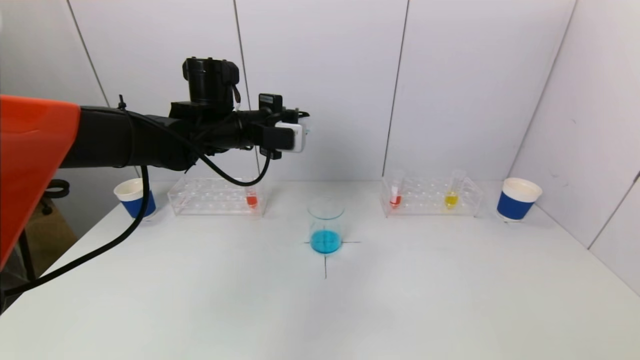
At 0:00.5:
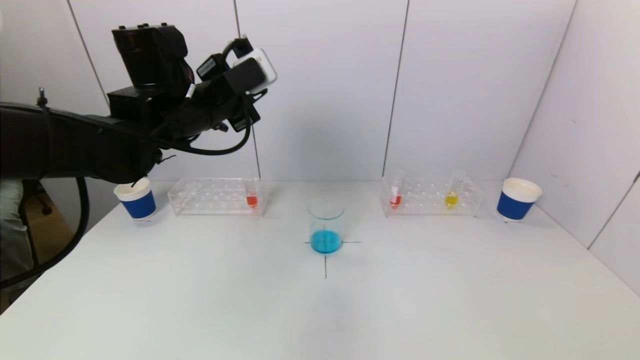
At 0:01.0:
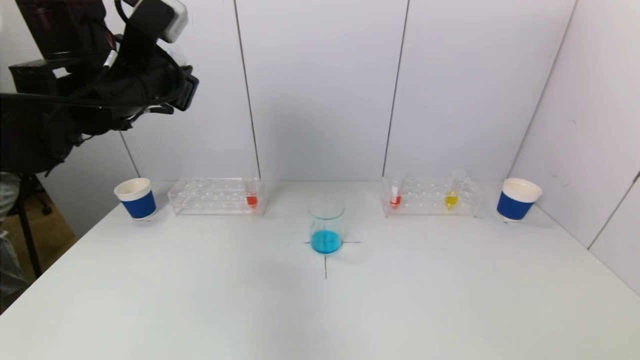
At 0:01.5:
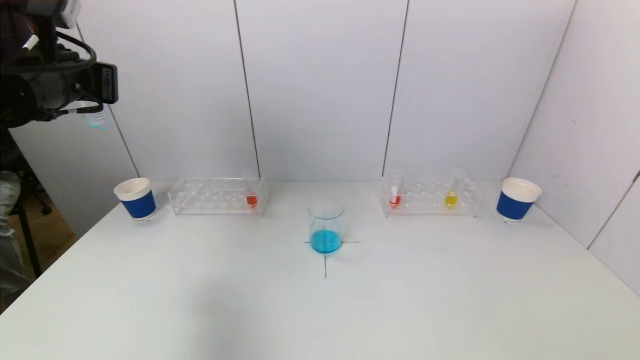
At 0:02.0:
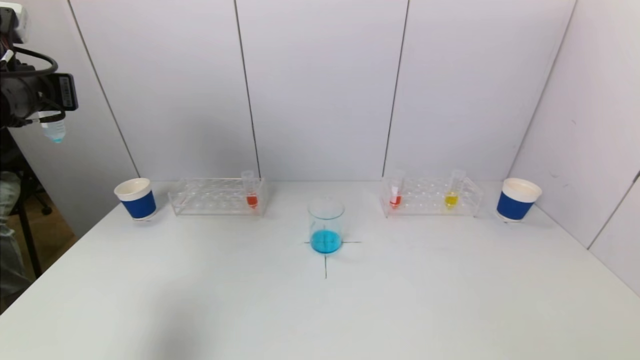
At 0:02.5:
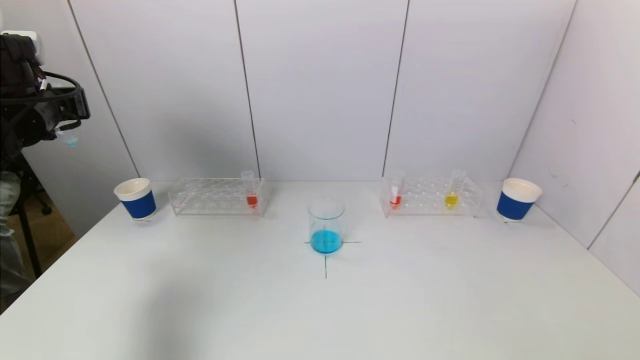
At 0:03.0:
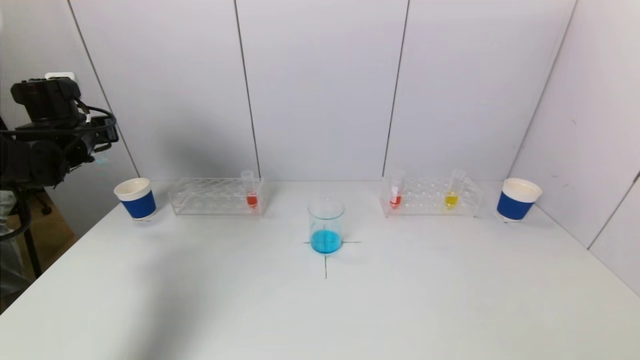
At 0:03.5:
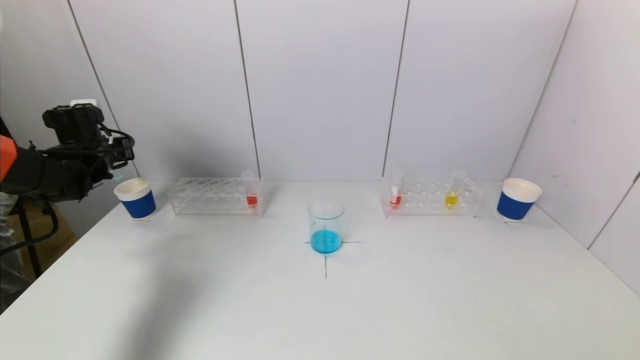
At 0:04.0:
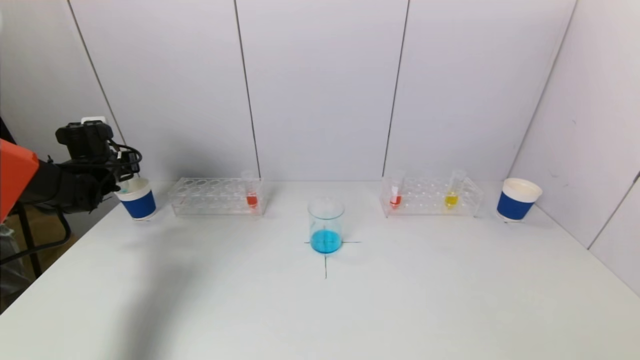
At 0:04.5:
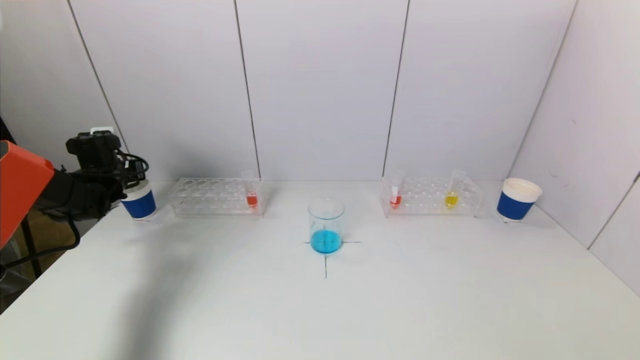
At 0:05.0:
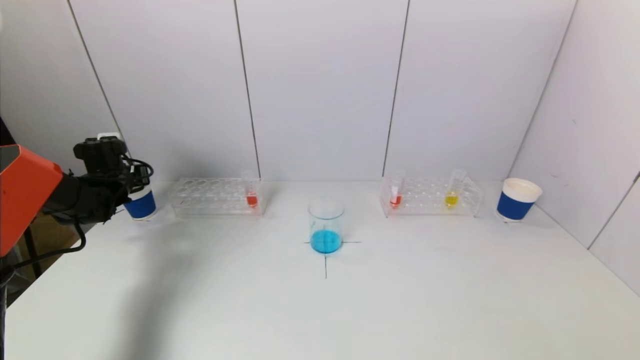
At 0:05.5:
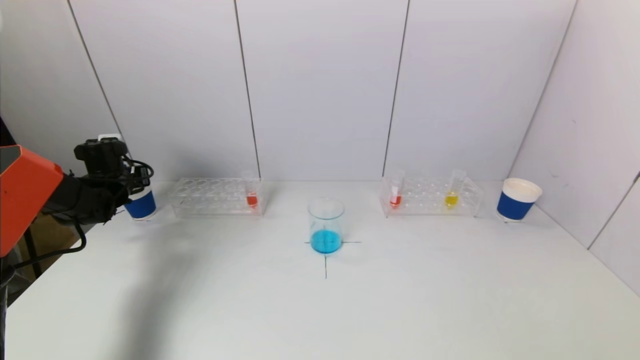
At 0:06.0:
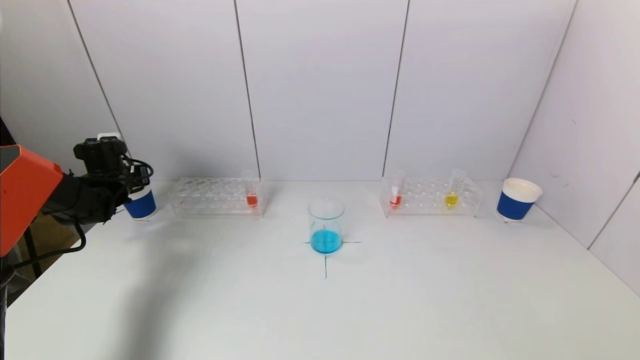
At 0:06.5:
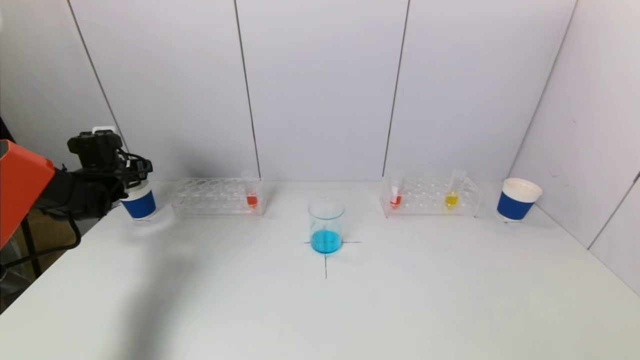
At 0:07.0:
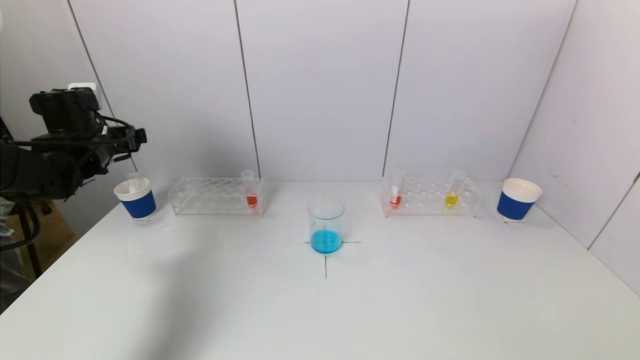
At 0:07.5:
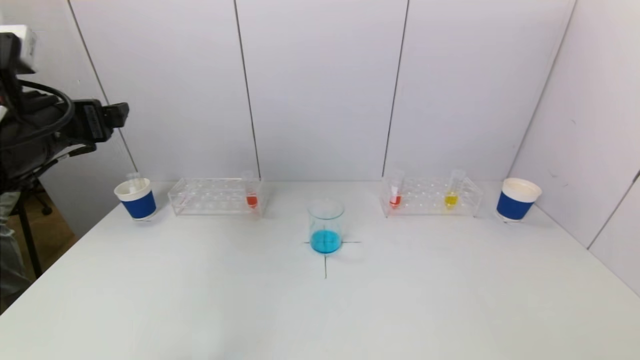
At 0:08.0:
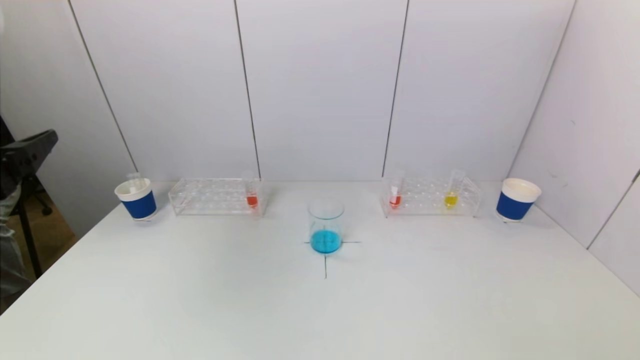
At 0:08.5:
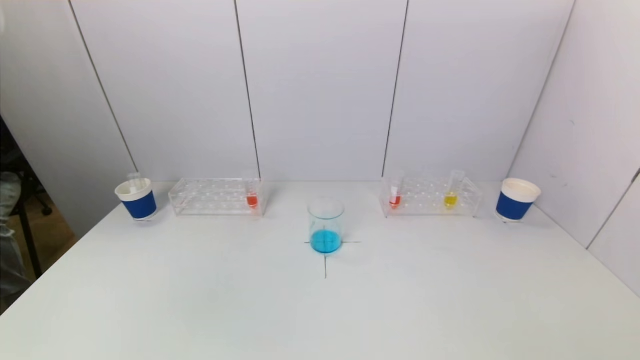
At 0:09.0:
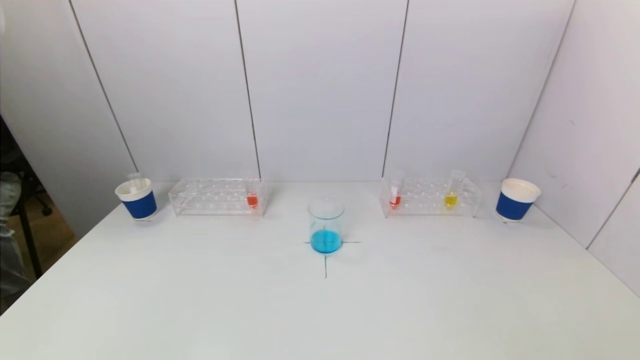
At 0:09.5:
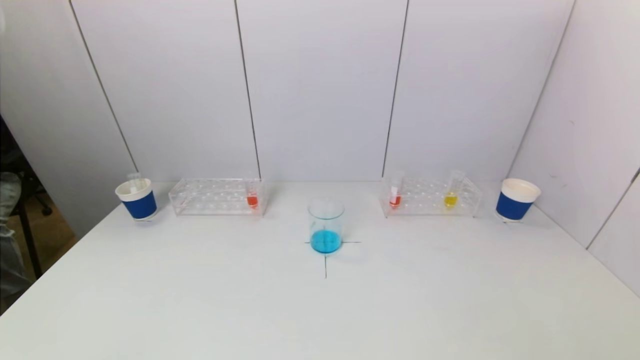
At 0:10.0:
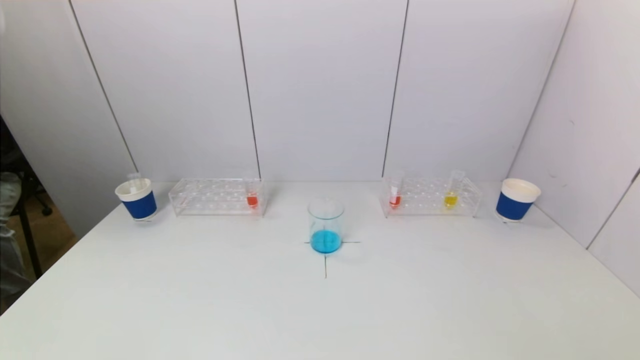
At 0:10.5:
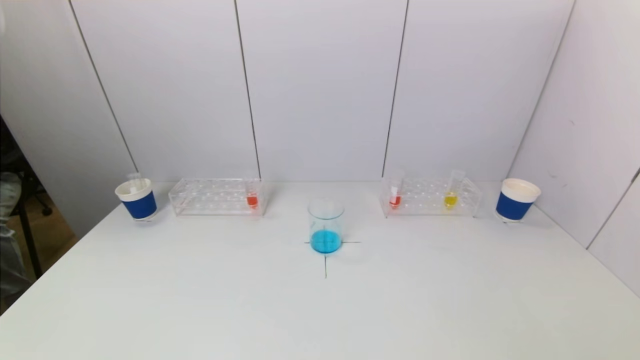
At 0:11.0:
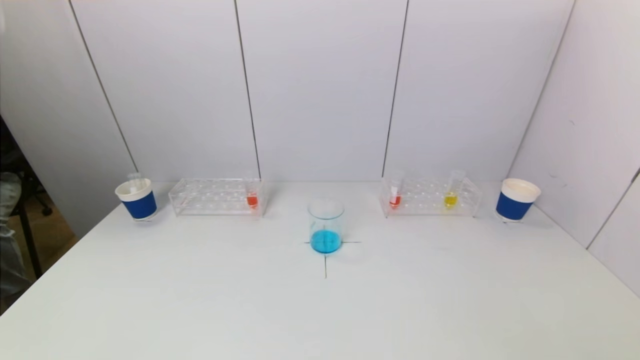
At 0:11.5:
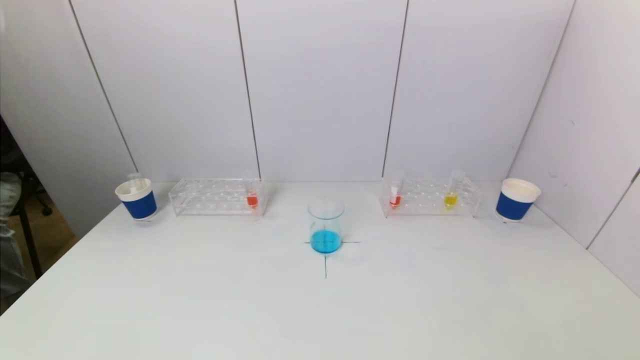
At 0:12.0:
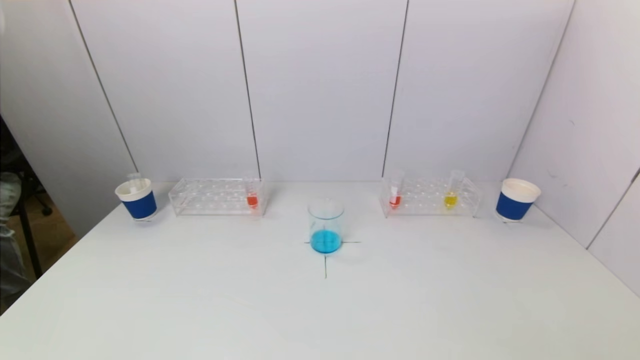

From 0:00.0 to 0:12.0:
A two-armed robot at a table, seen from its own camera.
Task of the whole recording: pick up a test tube with pigment on left test tube rack and a test tube with pigment on right test tube rack by grippers and pour them into the beaker.
Step, from 0:00.0 to 0:06.0: Place the test tube into the paper cup with the left gripper.
From 0:00.0 to 0:02.0: The left gripper travels to the left and backward by roughly 25 cm.
From 0:02.0 to 0:04.0: The left gripper heads downward and forward, covering some 25 cm.
From 0:04.0 to 0:06.0: The left gripper opens up.
From 0:06.0 to 0:08.0: The left gripper heads backward and upward, covering roughly 40 cm, and opens its fingers.
From 0:08.0 to 0:10.0: The left gripper moves downward and backward, roughly 25 cm.

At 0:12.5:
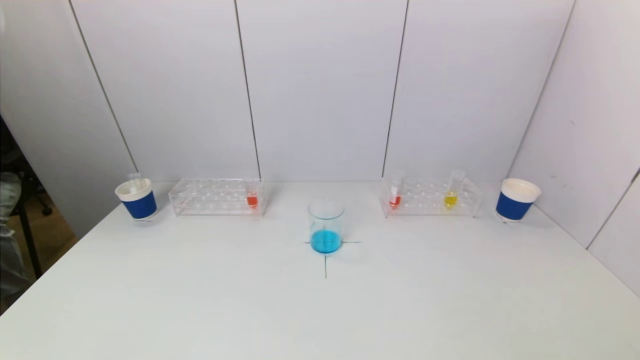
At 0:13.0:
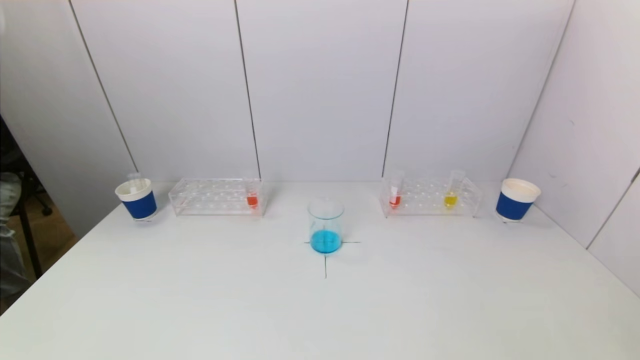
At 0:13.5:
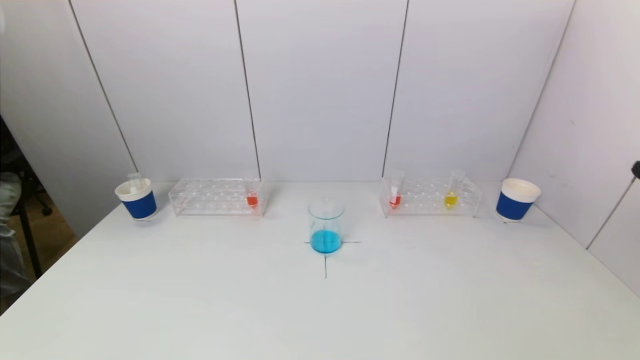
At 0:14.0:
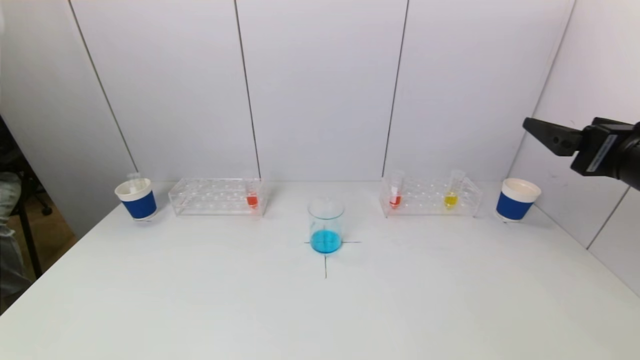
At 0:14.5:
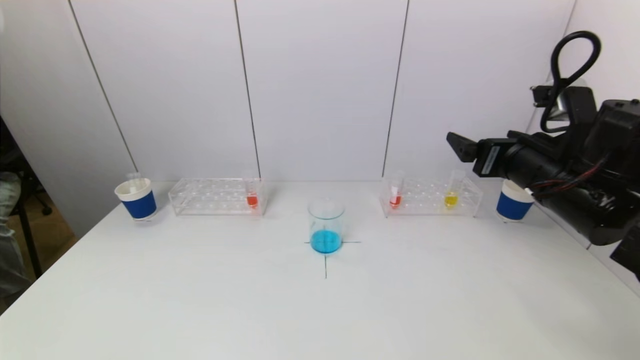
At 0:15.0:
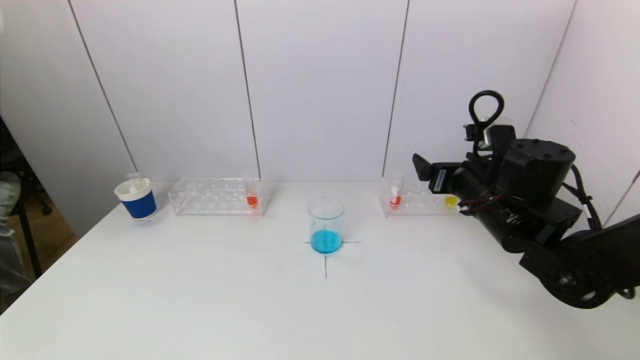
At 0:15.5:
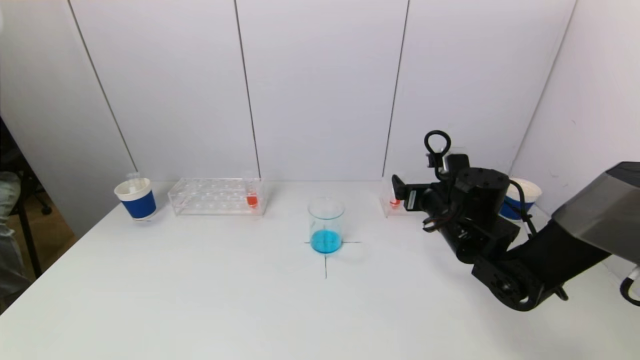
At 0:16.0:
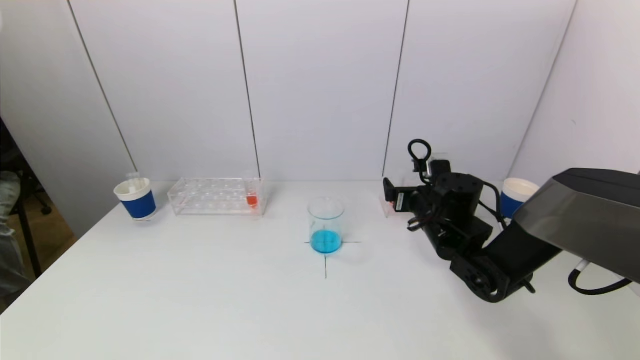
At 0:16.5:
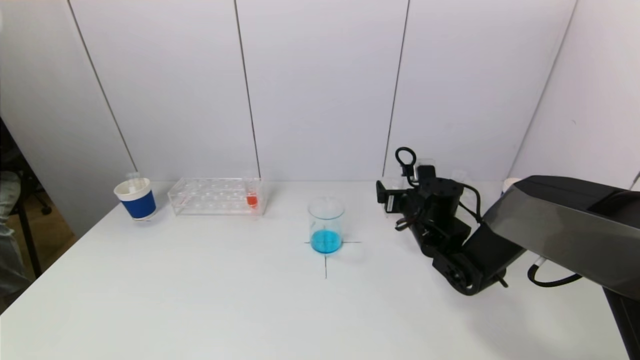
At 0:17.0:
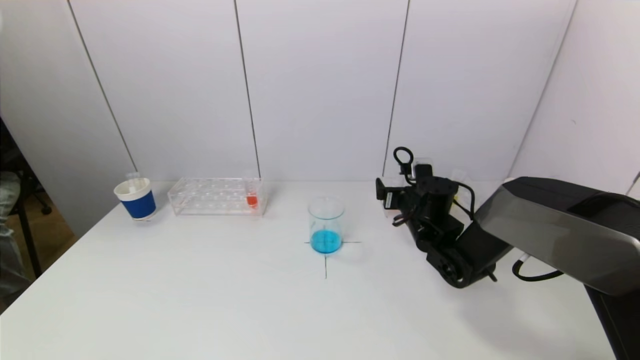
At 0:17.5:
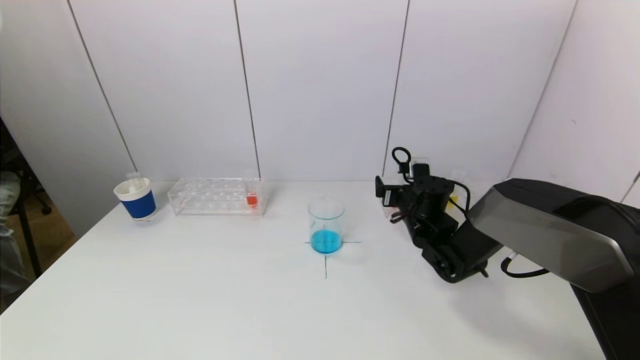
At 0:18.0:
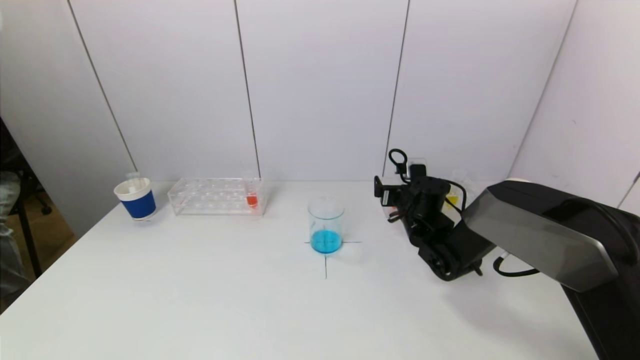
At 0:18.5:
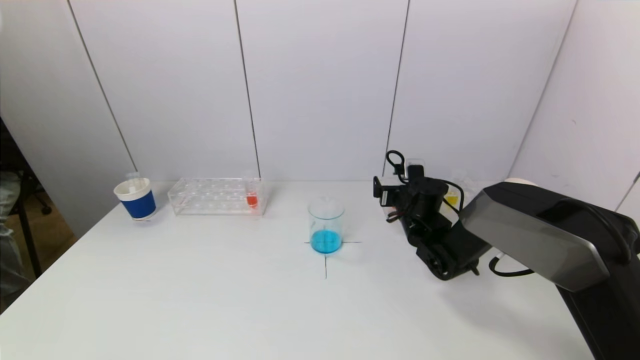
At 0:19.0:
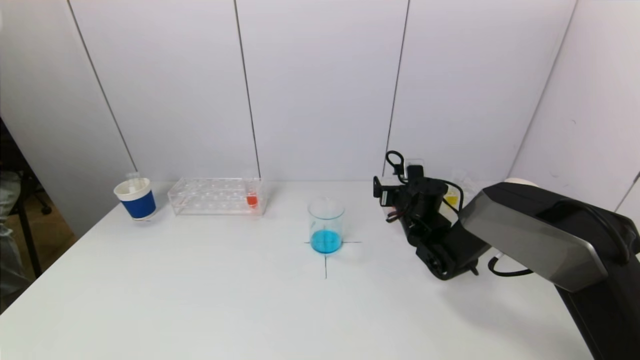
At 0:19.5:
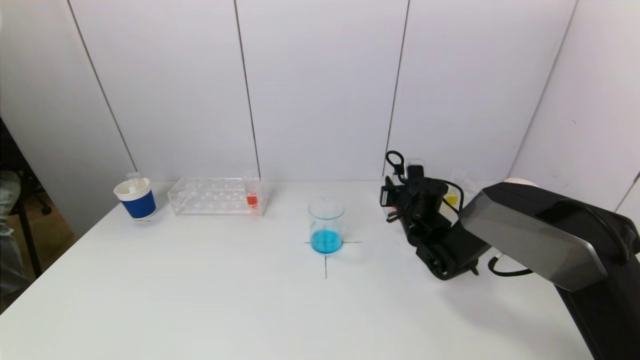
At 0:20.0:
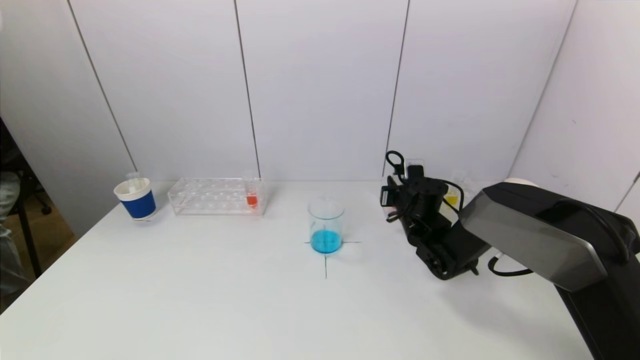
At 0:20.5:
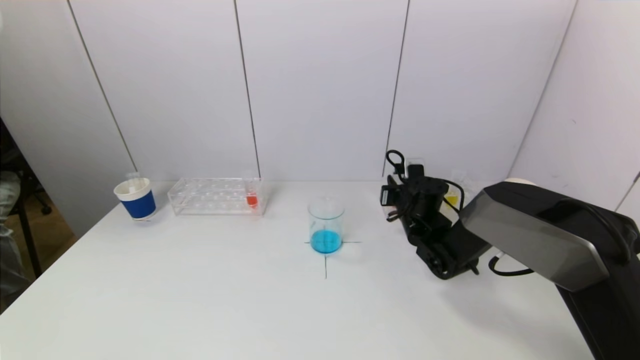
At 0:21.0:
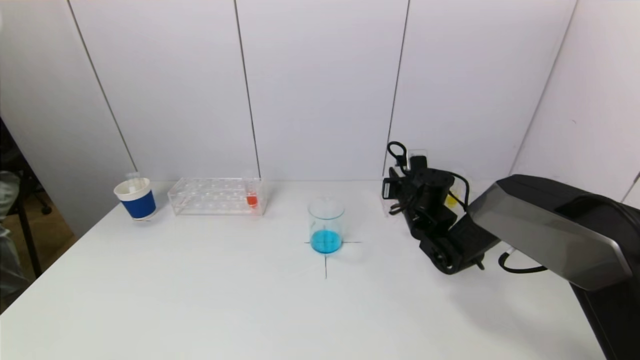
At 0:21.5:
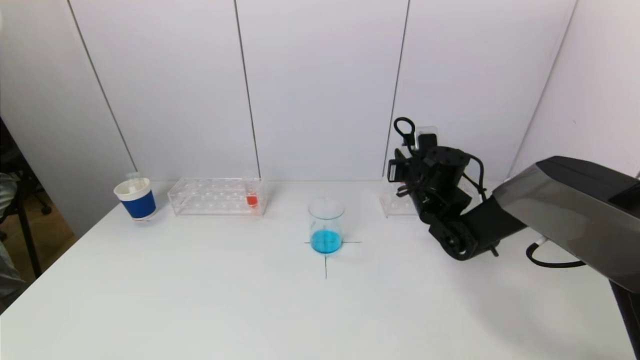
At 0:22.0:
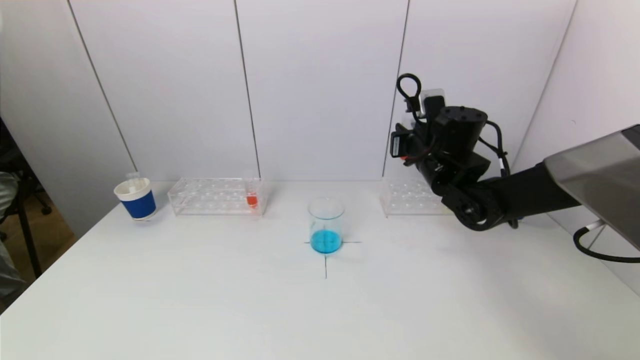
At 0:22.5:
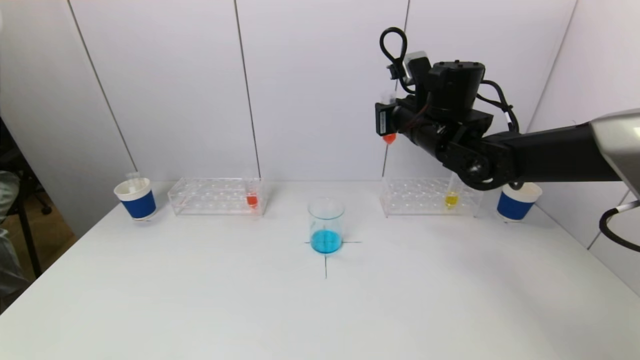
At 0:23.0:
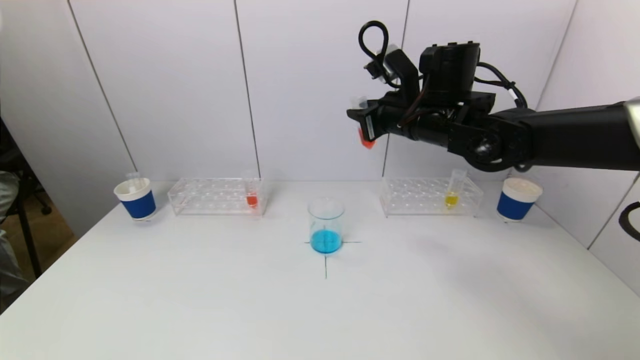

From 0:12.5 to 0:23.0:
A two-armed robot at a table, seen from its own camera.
Task of the whole recording: pick up a test tube with pigment on left test tube rack and a test tube with pigment on right test tube rack by grippers and pour them into the beaker.
Step, from 0:12.5 to 0:20.0: Grasp the red reagent with the right gripper.
From 0:12.5 to 0:14.5: The right gripper shifts approximately 30 cm forward.
From 0:14.5 to 0:16.5: The right gripper shifts approximately 20 cm downward, forward and to the left.
From 0:16.5 to 0:19.0: The right gripper changes place by some 5 cm.
From 0:19.0 to 0:21.0: The right gripper closes.
From 0:21.0 to 0:23.0: The right gripper is displaced upward by approximately 20 cm.
